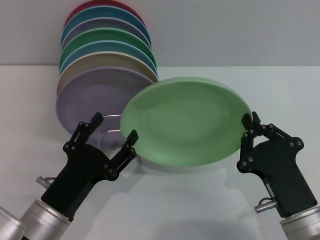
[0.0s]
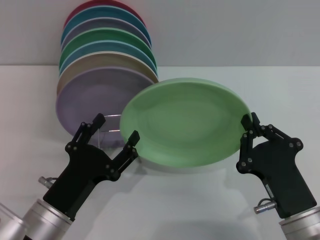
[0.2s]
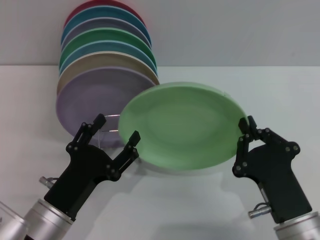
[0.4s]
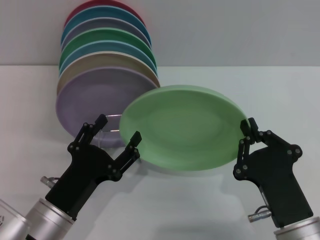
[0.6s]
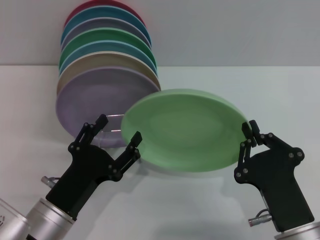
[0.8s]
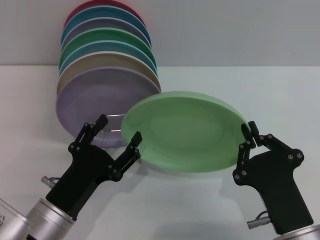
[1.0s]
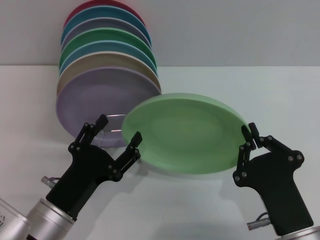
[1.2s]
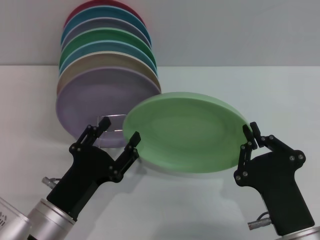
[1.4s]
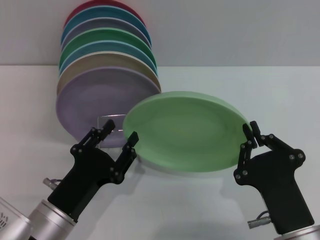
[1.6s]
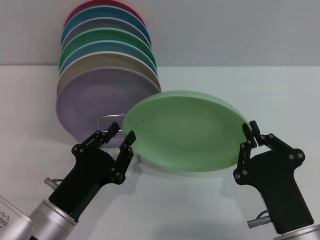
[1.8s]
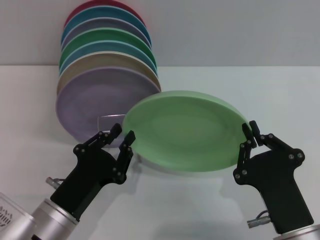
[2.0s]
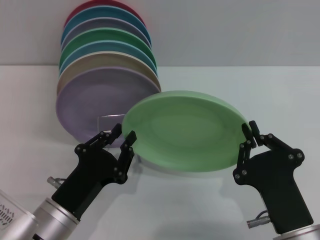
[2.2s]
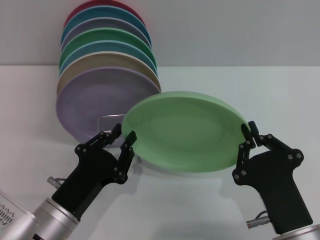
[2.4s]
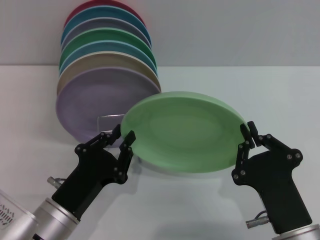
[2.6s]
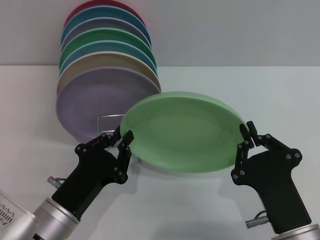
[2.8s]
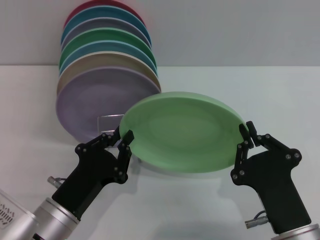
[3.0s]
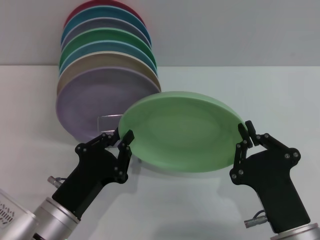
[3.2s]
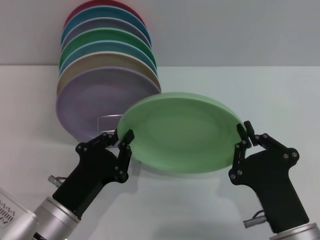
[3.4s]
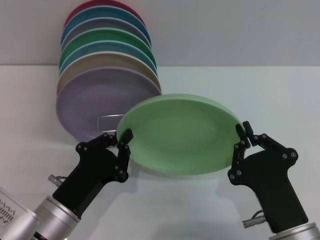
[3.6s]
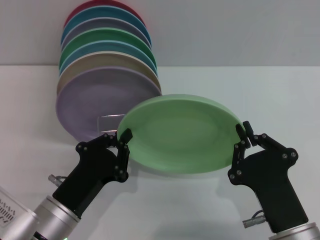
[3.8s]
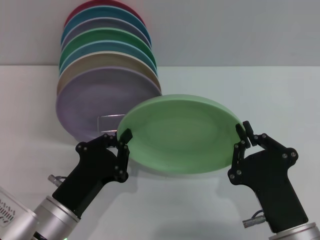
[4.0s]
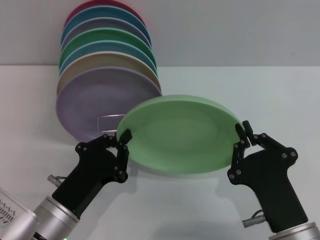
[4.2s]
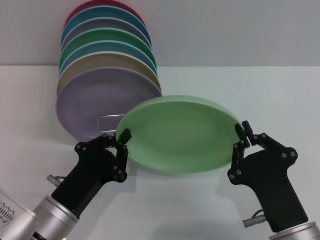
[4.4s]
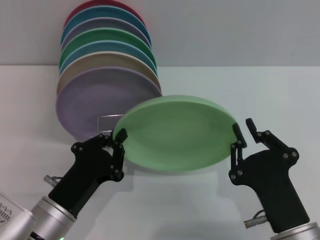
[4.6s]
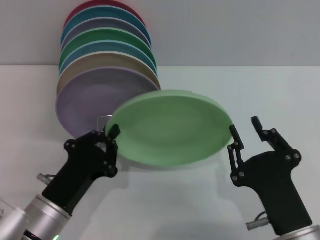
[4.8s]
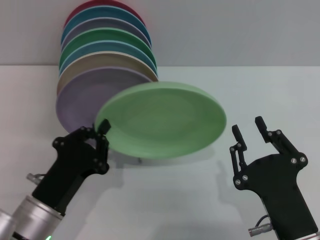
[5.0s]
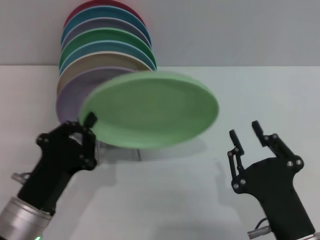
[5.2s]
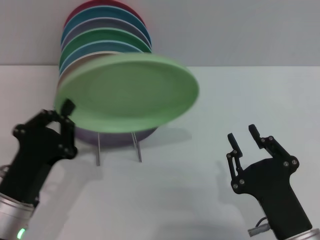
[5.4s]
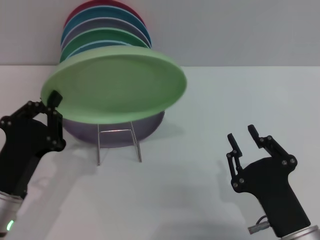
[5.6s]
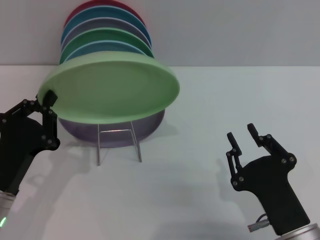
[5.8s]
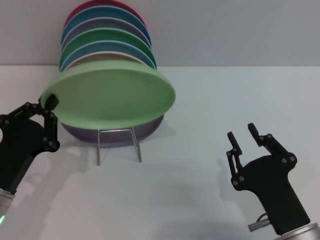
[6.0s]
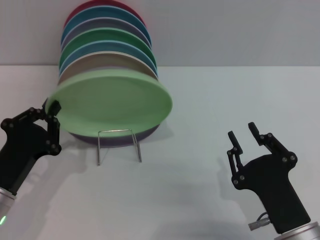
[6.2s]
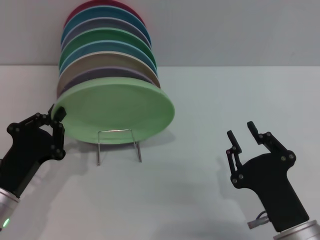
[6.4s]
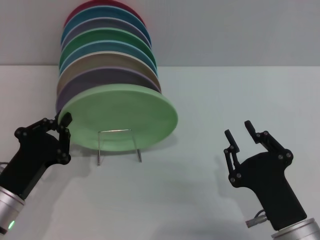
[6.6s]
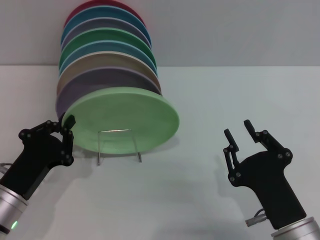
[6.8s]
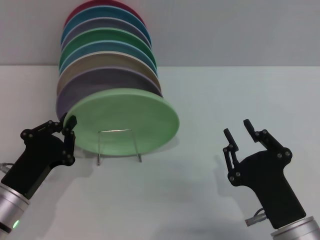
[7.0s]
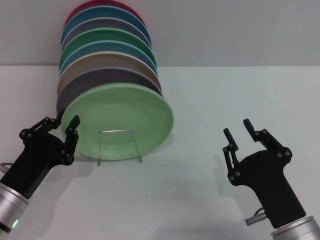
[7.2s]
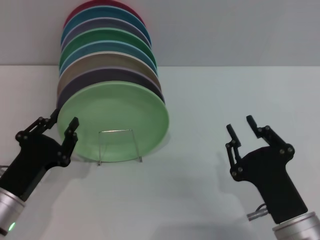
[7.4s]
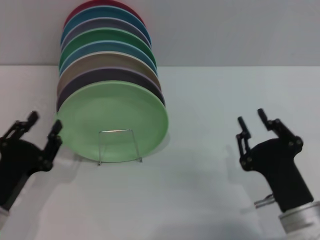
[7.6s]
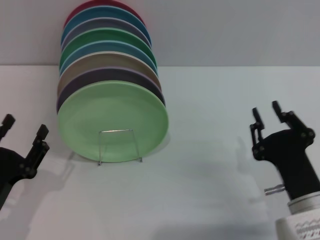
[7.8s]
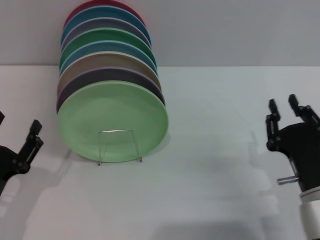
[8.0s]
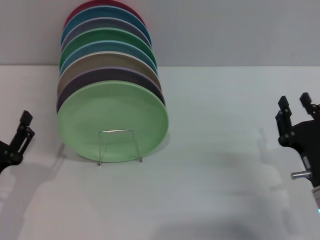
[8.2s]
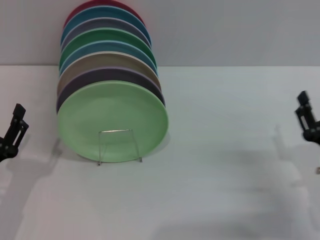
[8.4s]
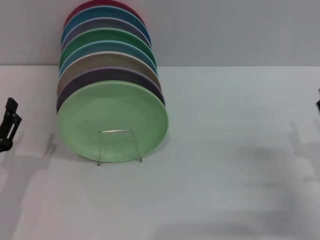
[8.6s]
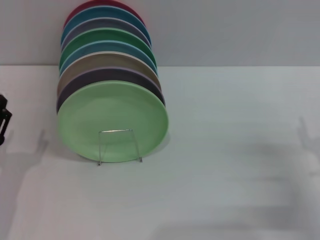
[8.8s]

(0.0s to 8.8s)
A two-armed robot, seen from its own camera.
Task of the whole recording: Grip the plate with one hand, pass it to the other, then set it on the shelf.
Step, 0.0s - 5.0s: Pass the plate from the right gripper to the left gripper.
Step, 5.4s - 8.2s: Place the plate on the shelf with the left gripper.
0.0s - 1.4s: The grippers make only small movements.
1.4s - 3.0s: The left gripper closes up.
3.0s - 4.4s: The two grippers keep their place.
4.4s - 5.8s: The left gripper goes roughly 5 cm to the left.
5.8s - 7.4s: The grippers stay close to where they were, moving slightly.
7.4s - 8.8s: The right gripper goes roughly 15 cm to the right and forward, and opens its fingers. Meanwhile the left gripper opens up.

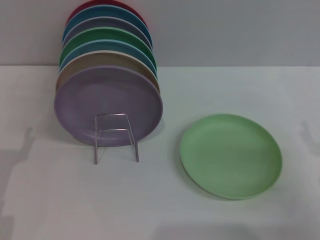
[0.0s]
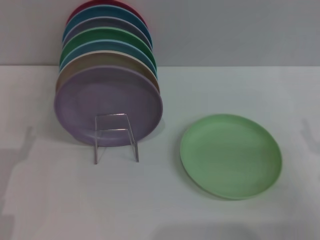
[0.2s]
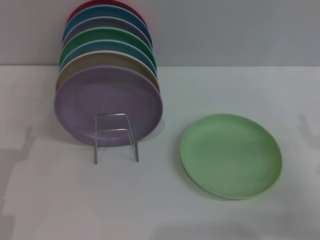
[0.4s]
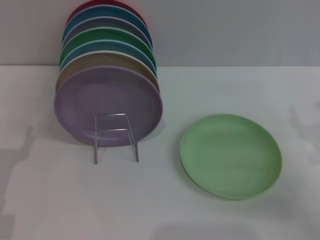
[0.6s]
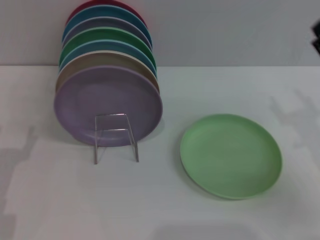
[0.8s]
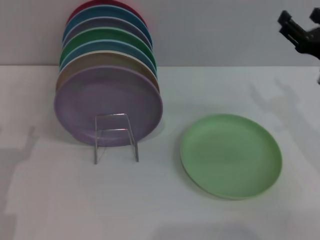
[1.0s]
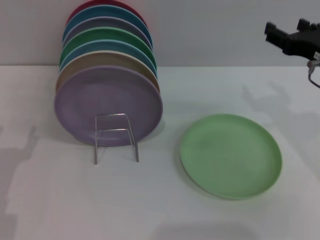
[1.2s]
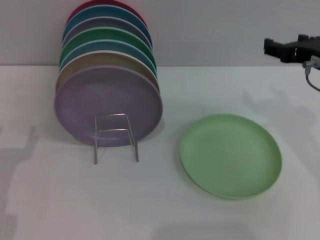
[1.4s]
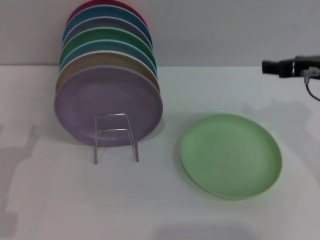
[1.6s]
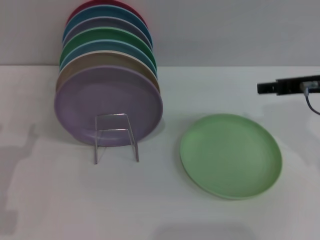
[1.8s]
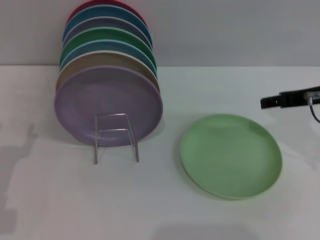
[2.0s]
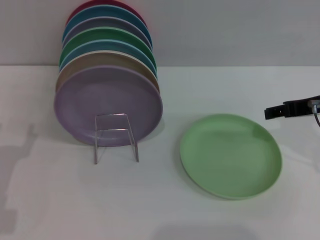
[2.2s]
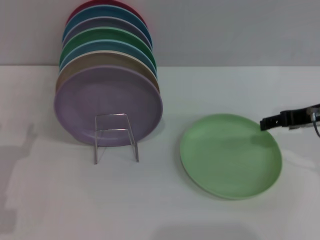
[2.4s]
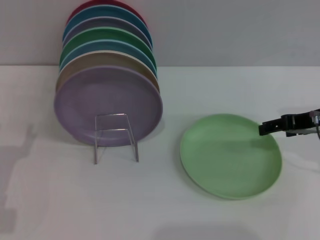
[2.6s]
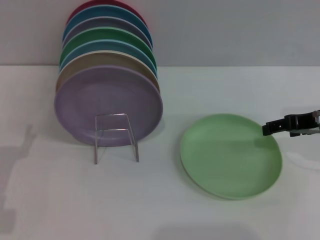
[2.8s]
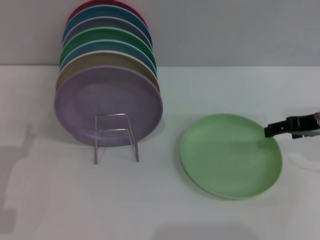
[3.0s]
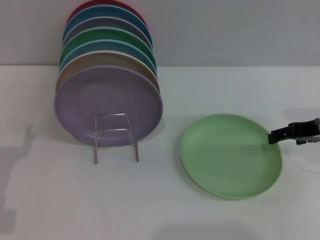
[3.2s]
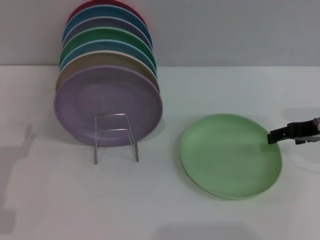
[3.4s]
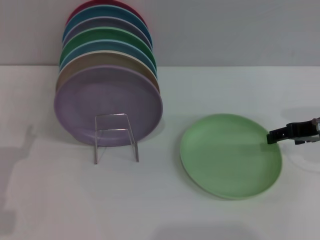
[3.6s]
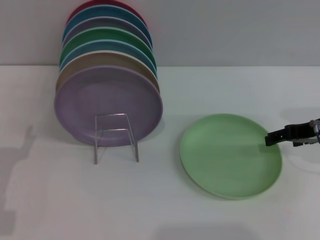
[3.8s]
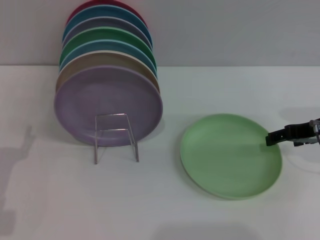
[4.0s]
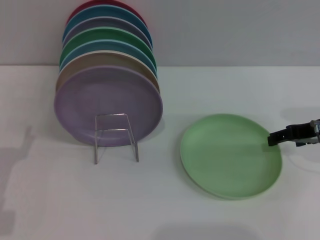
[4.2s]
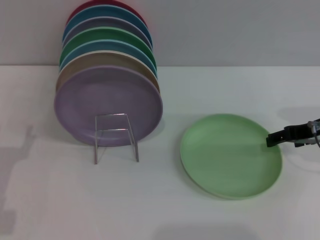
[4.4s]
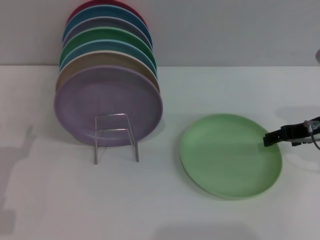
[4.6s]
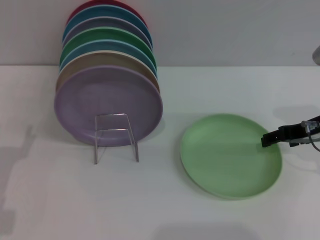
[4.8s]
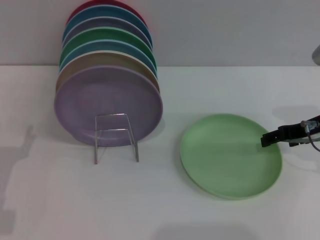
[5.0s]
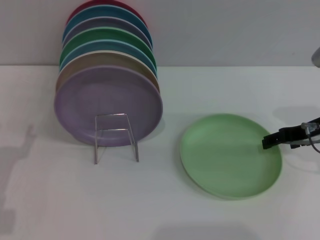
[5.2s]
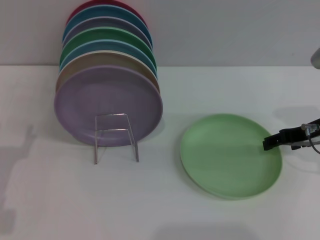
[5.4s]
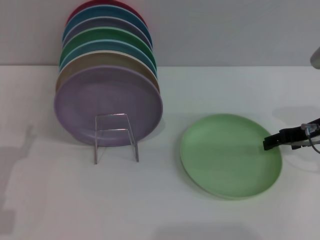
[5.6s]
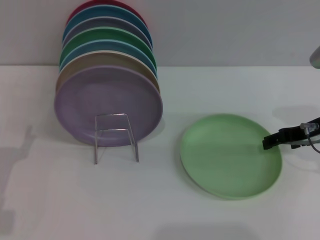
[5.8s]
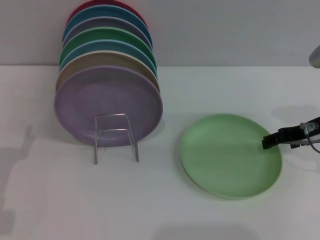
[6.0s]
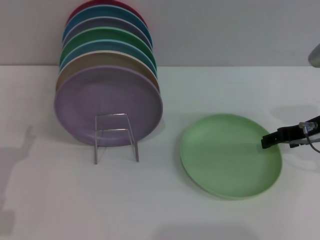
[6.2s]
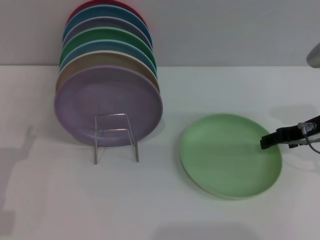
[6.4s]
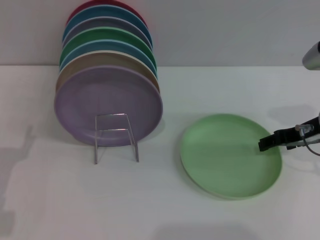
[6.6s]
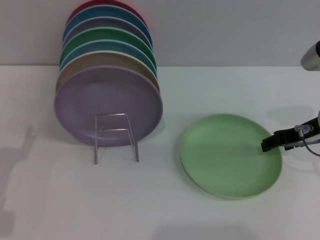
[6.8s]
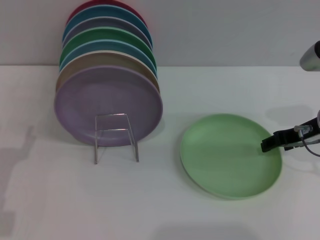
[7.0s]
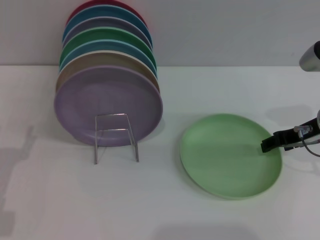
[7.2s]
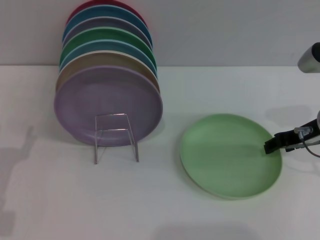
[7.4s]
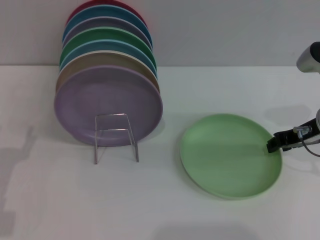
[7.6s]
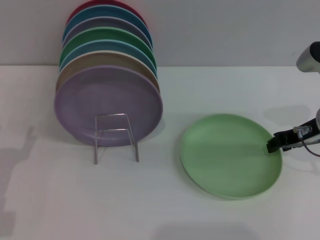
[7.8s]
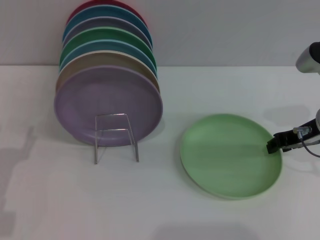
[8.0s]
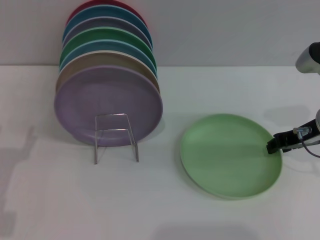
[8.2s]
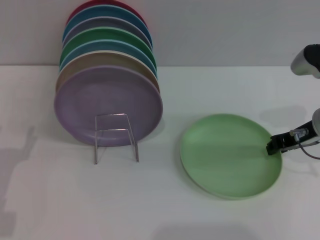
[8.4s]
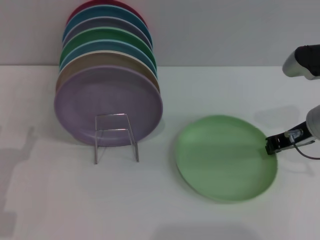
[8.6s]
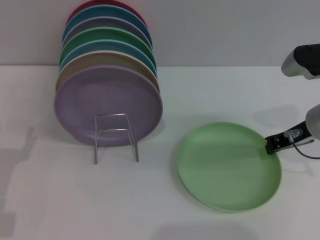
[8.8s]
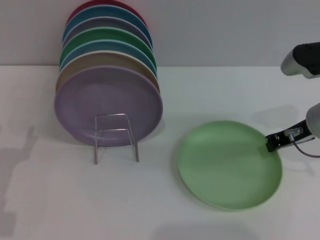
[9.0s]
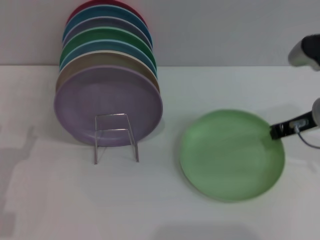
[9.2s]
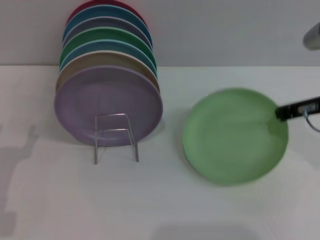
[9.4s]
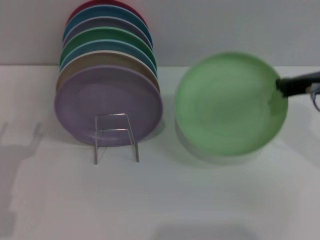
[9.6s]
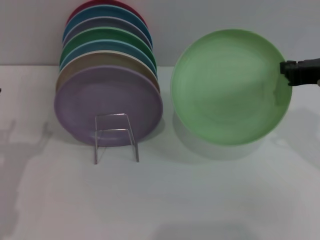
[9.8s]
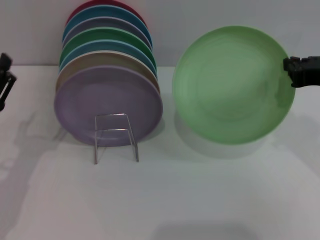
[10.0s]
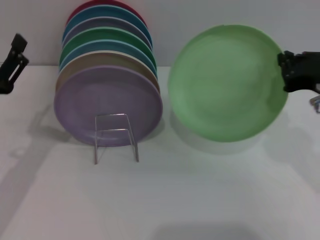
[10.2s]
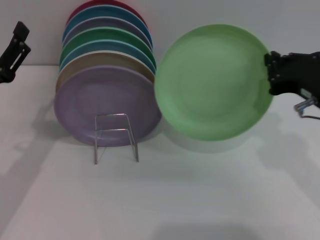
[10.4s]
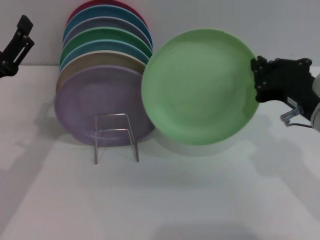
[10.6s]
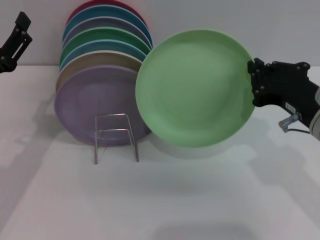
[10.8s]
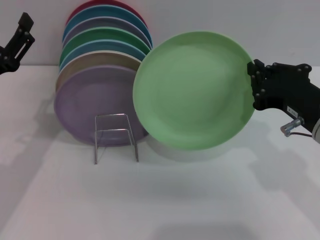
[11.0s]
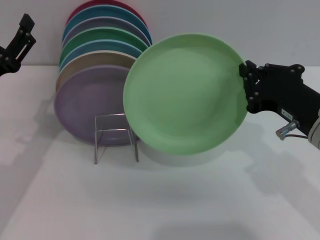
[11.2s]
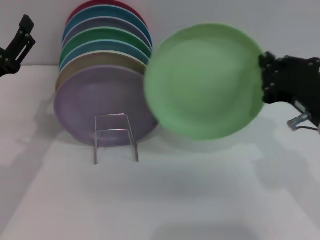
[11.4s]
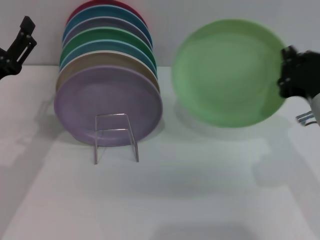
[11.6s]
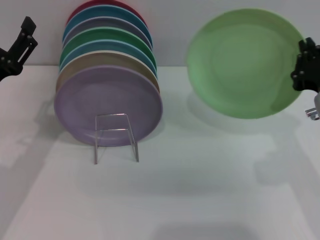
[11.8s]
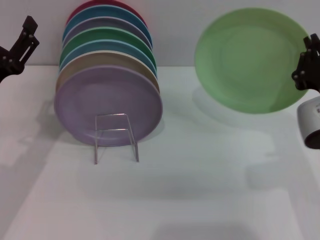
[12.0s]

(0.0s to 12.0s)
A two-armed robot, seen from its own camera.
Task of the whole recording: Grip the plate with one hand, pass it to the other, then set it on the shelf.
Step, 0.0s - 9.6s: Pick up the plate with the right gripper.
0.0s - 1.6s: The right gripper heads upward, forward and to the left, covering some 20 cm.
1.6s - 3.0s: The right gripper shifts by roughly 5 cm.
3.0s - 4.4s: The grippers make only small movements.
4.4s - 6.0s: The two grippers keep their place.
6.0s - 7.6s: The two grippers keep their place.
7.6s - 9.0s: The right gripper closes up.
9.0s - 10.4s: The right gripper shifts about 10 cm backward. The left gripper shifts some 5 cm upward.

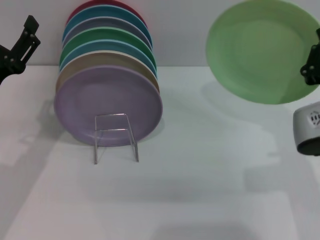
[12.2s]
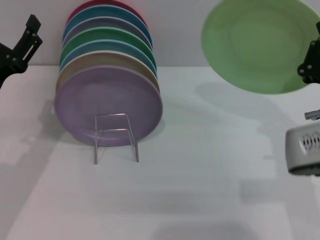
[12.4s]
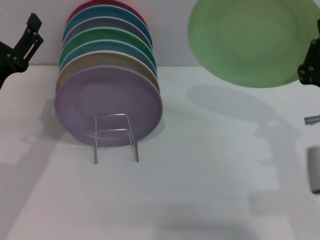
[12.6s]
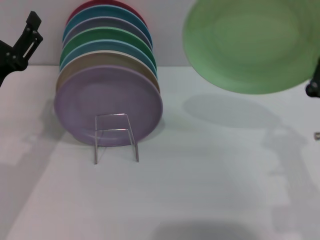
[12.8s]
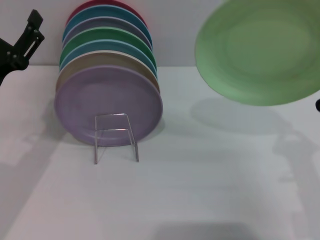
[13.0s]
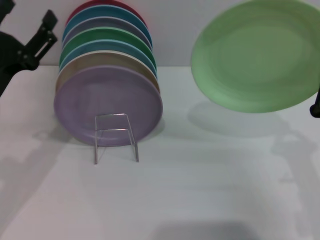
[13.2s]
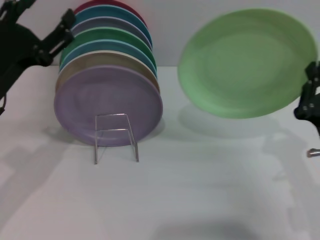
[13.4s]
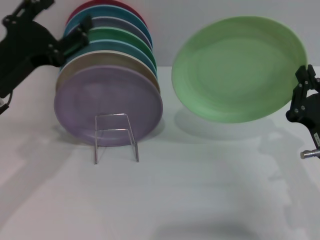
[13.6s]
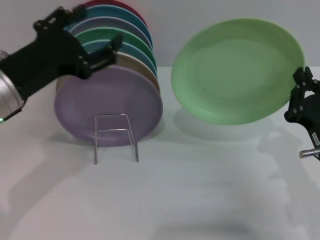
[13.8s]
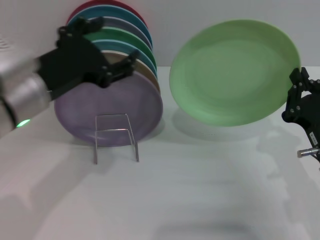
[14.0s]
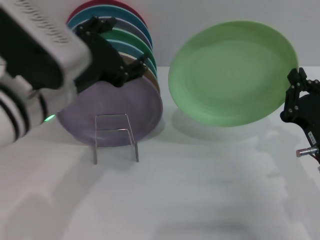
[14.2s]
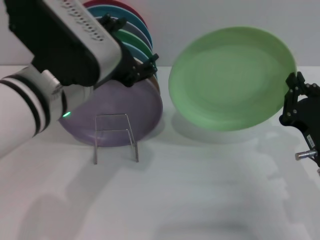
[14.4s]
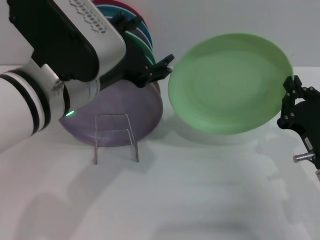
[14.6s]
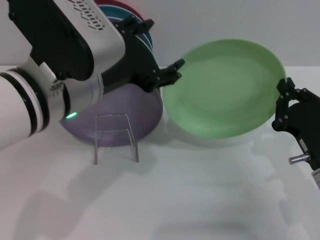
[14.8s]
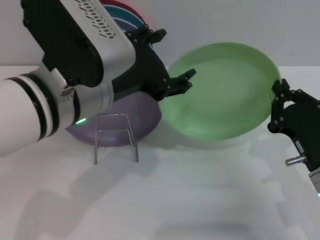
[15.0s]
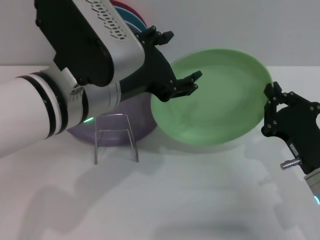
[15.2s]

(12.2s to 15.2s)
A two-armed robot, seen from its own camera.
Task of the whole recording: Grip the plate with one hand, pass it to the other, then set it on the shelf.
12.2s - 13.8s: The left gripper moves upward, roughly 10 cm; the right gripper heads downward, covering roughly 10 cm.
13.8s - 15.2s: The left gripper heads to the right, covering approximately 10 cm.
